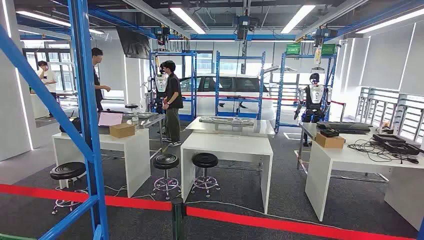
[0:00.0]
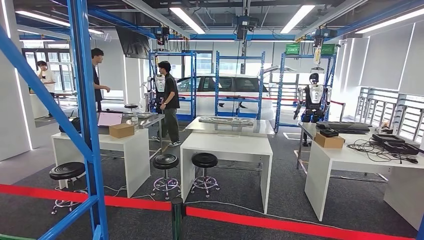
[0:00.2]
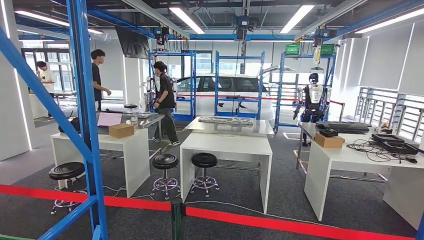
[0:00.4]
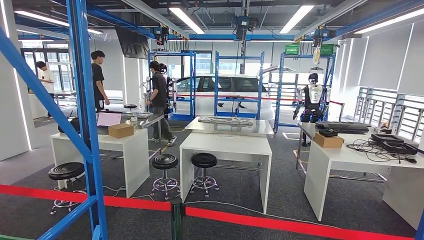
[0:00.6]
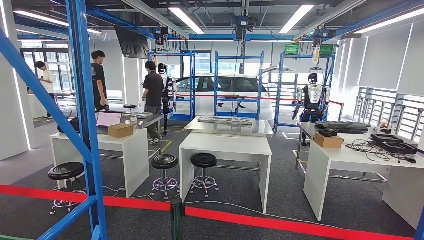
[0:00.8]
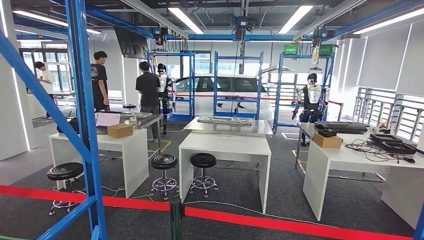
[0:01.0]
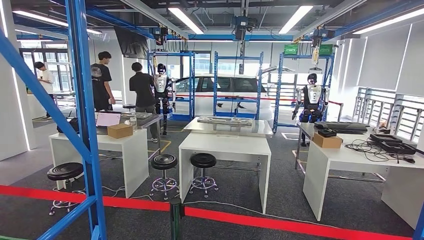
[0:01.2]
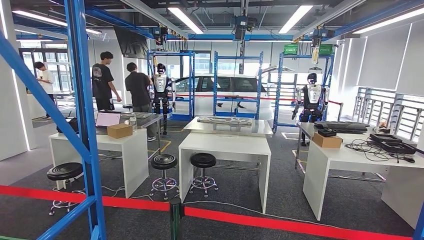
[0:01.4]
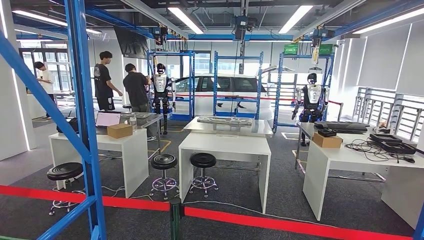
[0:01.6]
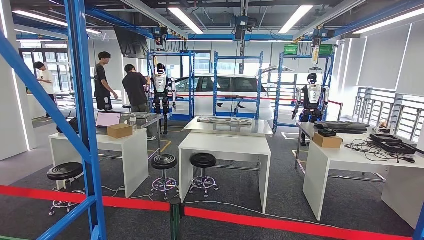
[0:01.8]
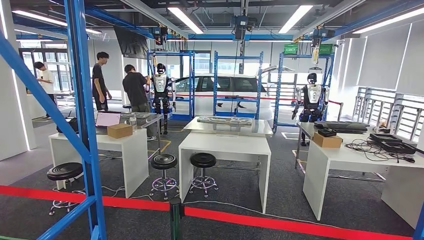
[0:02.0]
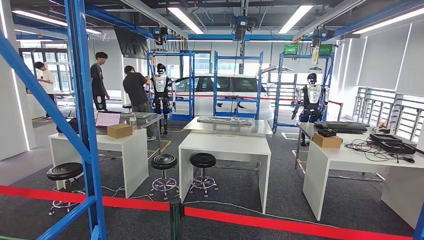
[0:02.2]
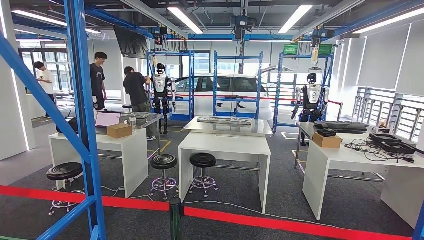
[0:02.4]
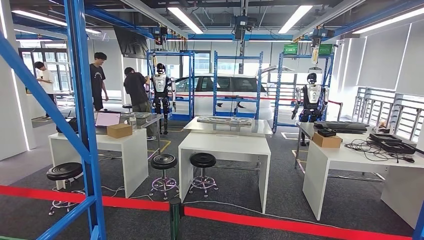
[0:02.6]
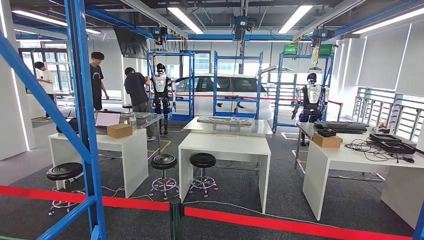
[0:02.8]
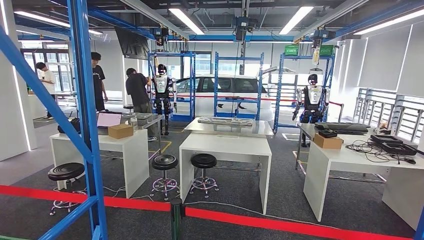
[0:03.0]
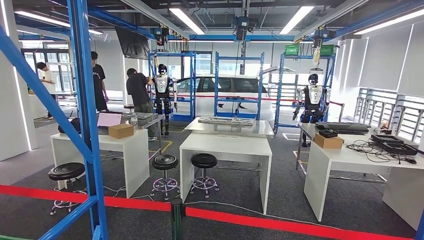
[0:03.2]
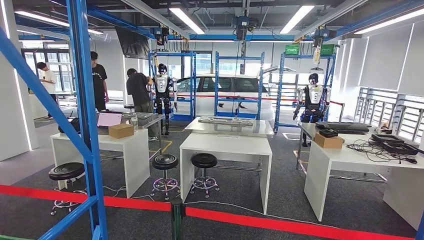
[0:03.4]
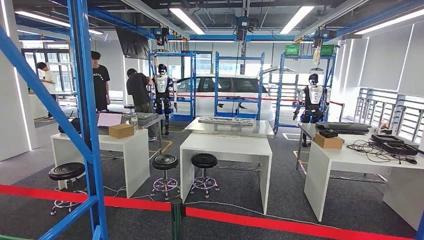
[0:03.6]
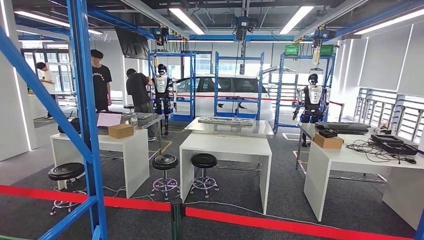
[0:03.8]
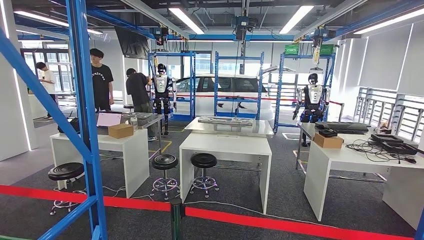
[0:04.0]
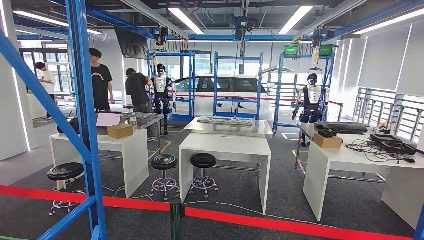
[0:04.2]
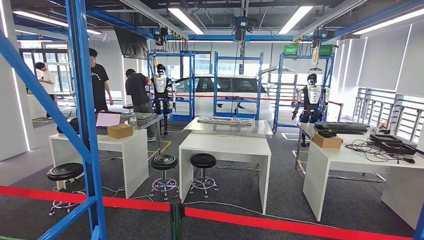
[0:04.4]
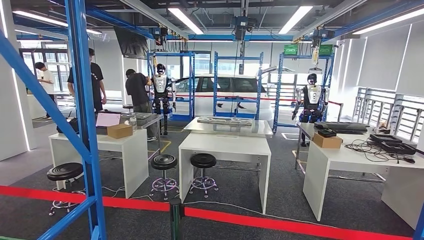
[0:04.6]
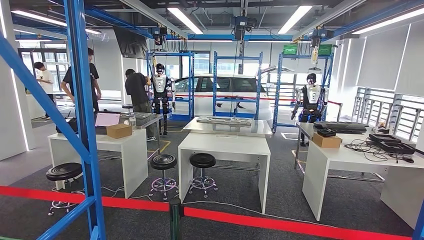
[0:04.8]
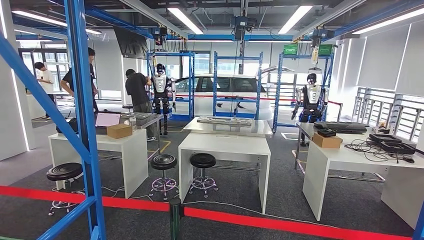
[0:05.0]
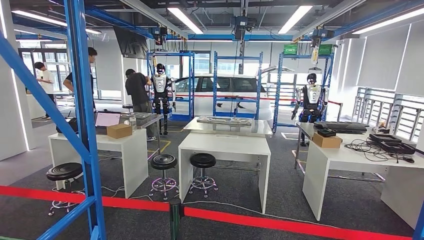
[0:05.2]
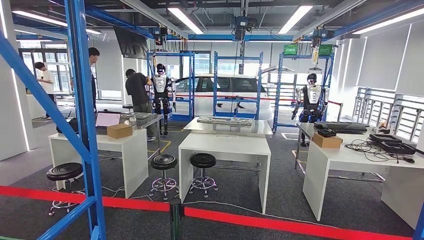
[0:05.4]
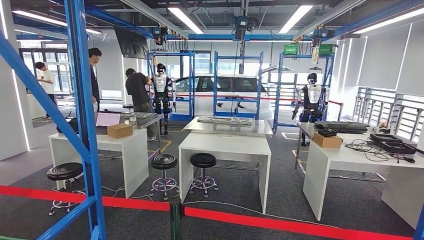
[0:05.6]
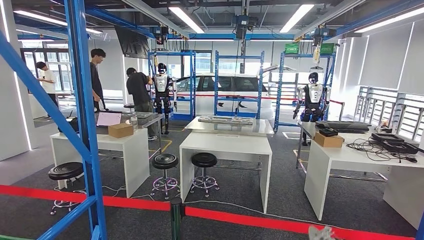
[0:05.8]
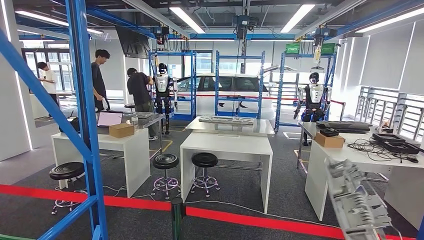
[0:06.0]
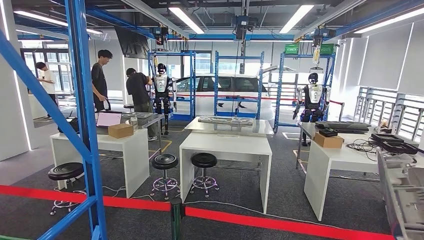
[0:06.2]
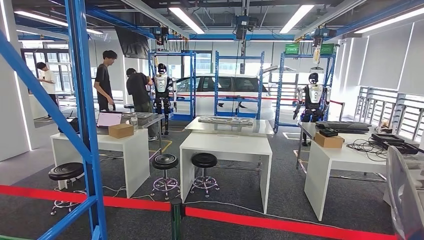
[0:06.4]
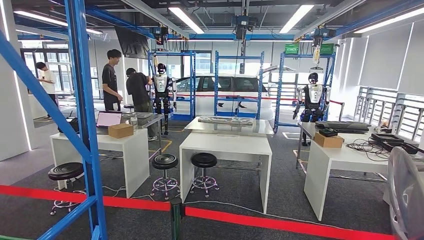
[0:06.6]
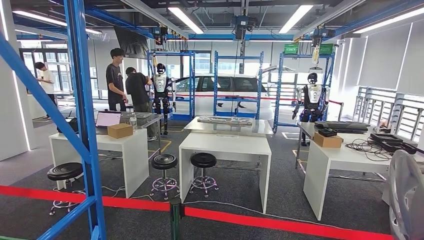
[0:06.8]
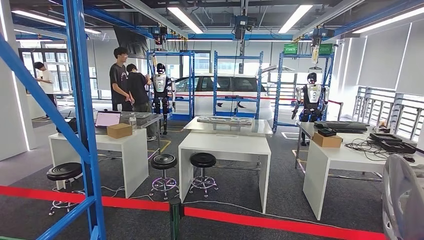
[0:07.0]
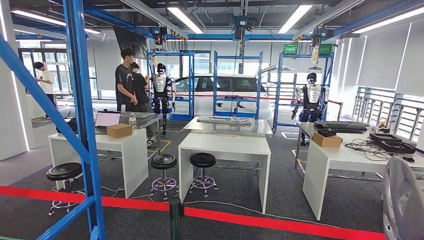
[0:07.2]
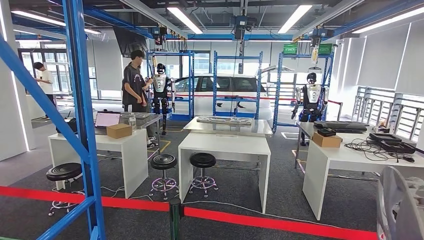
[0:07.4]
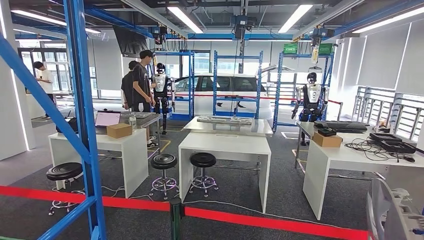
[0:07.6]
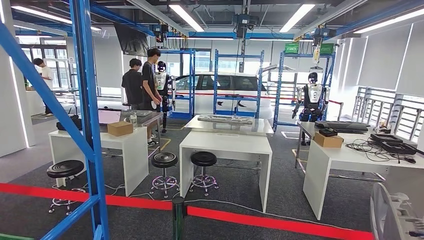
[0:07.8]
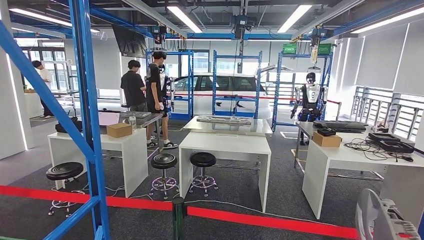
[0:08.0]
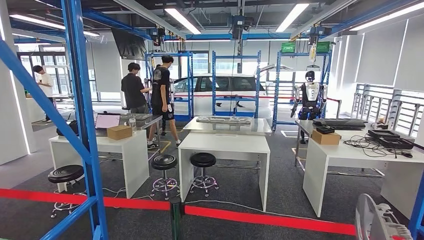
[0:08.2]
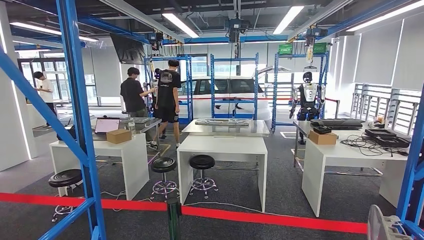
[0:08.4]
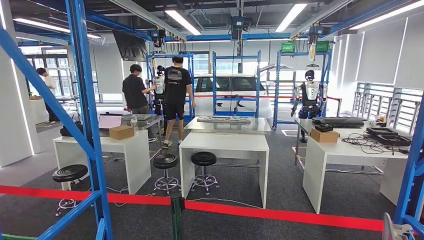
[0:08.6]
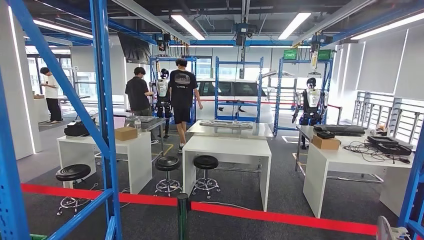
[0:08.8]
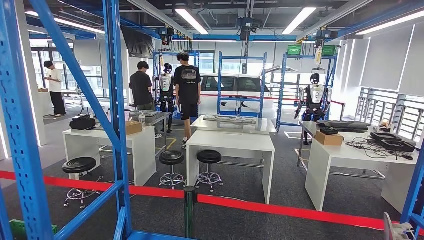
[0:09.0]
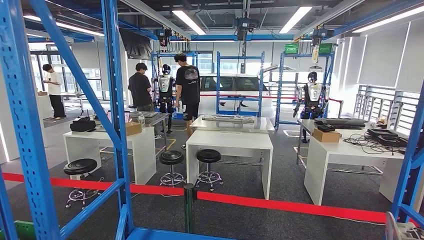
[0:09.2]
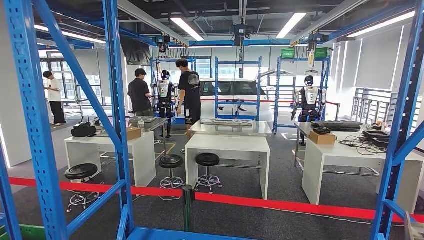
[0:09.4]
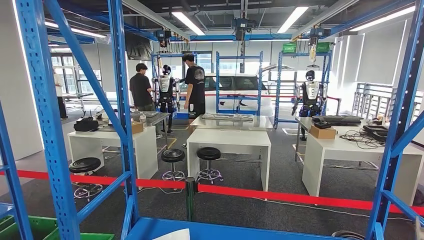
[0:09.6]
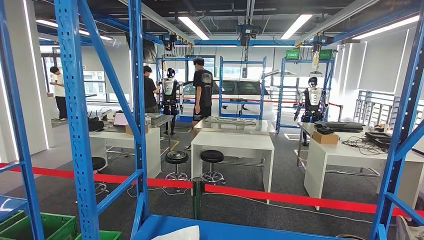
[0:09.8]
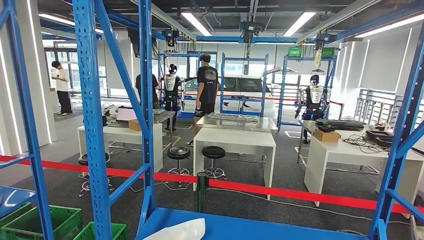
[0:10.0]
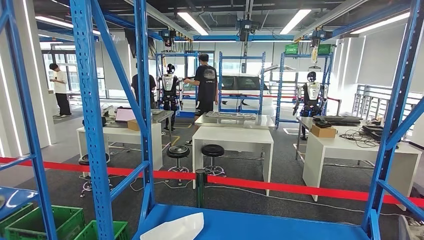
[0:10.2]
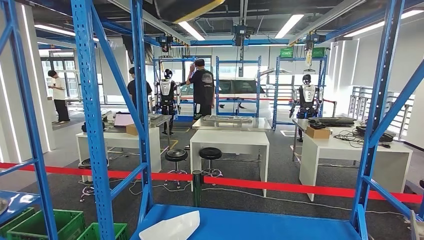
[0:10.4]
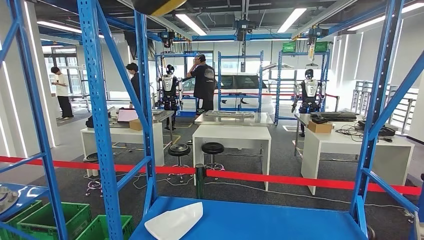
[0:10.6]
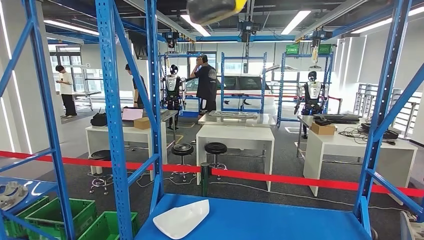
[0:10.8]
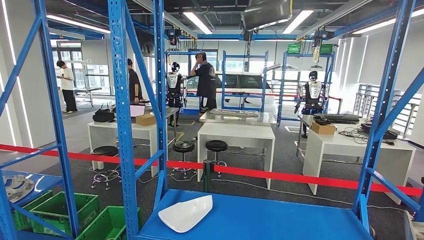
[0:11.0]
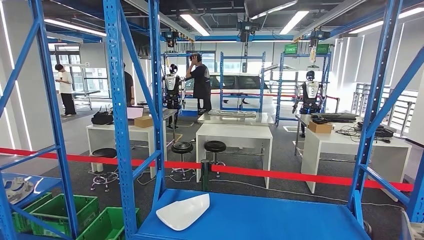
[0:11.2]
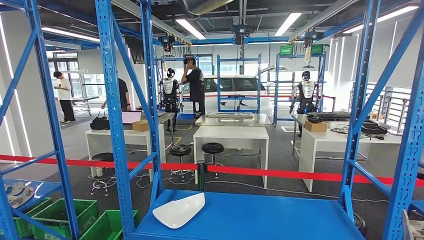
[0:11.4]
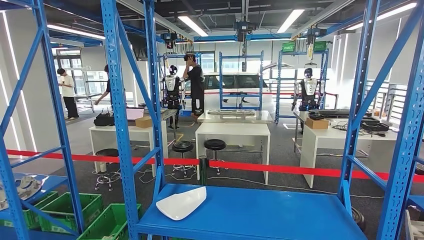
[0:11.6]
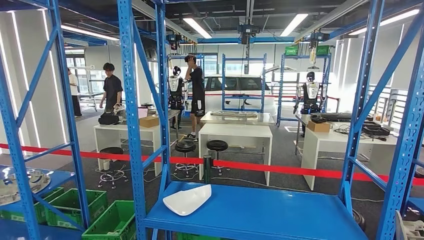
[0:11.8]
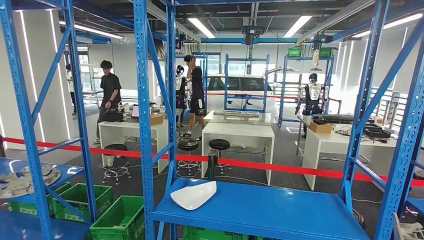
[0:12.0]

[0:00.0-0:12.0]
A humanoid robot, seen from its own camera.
Step, 0:00.0 to 0:09.8: Pick up the small component from the shelf.

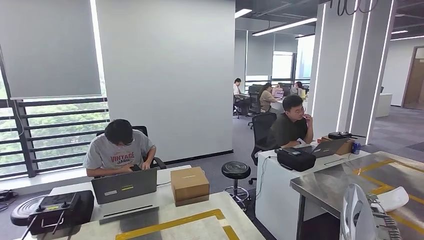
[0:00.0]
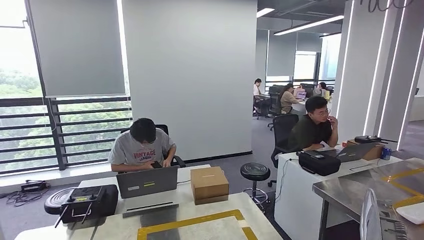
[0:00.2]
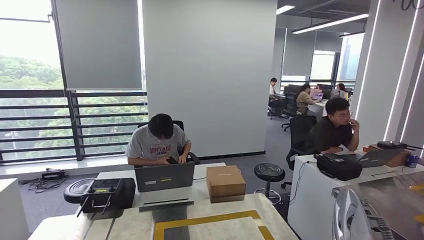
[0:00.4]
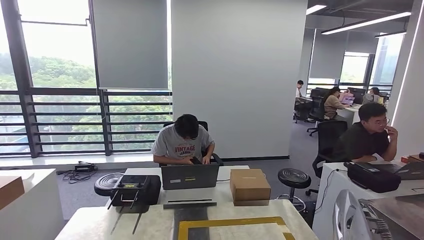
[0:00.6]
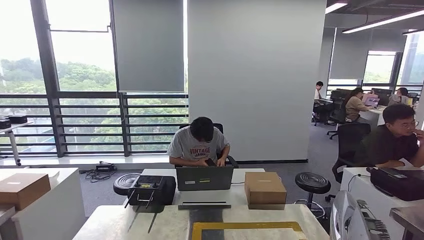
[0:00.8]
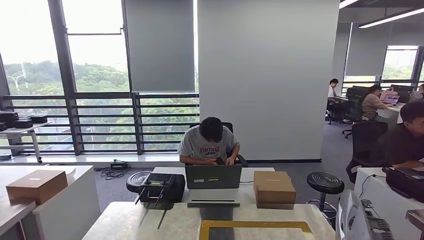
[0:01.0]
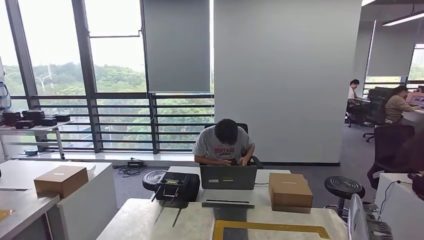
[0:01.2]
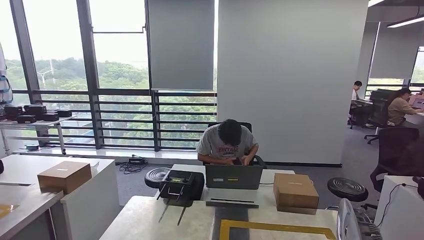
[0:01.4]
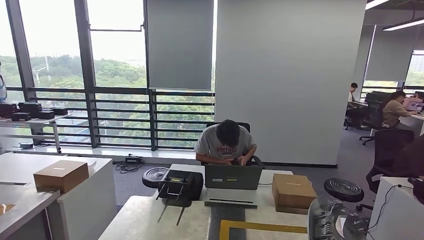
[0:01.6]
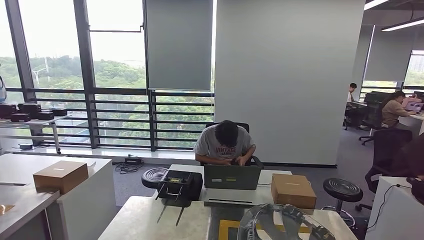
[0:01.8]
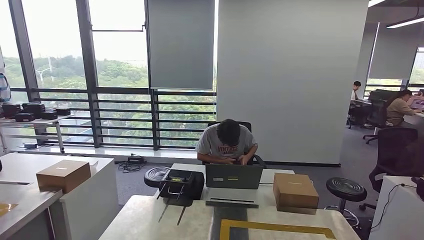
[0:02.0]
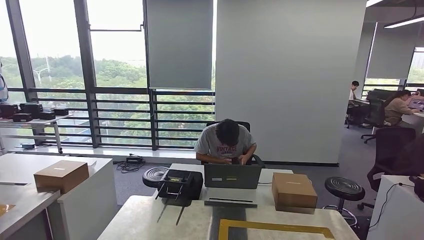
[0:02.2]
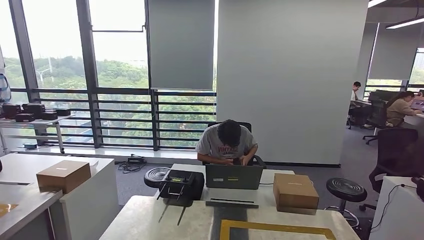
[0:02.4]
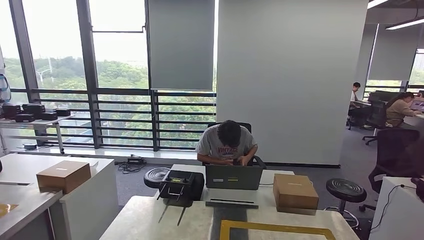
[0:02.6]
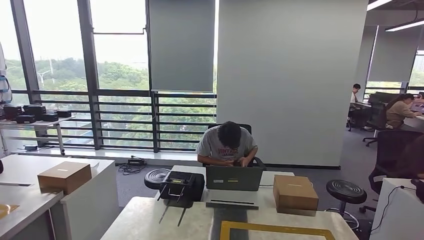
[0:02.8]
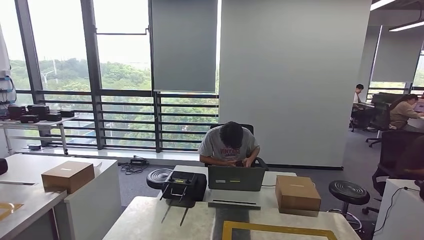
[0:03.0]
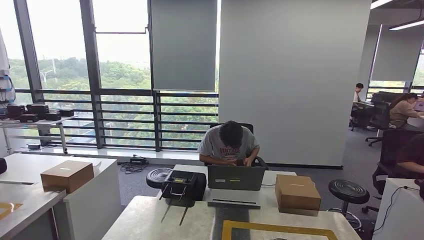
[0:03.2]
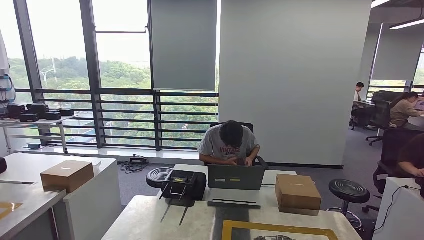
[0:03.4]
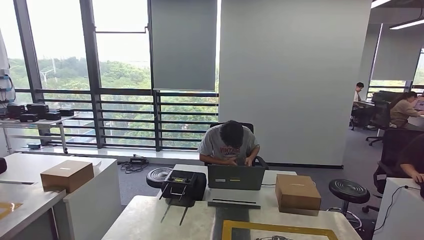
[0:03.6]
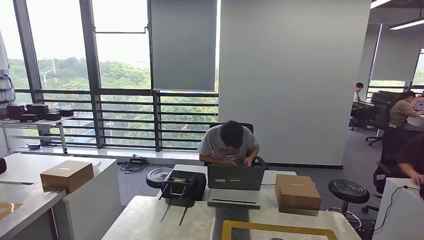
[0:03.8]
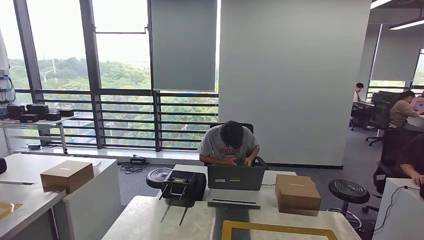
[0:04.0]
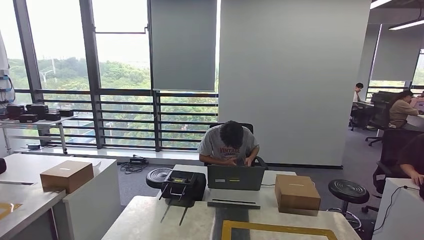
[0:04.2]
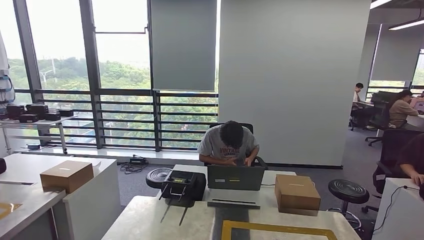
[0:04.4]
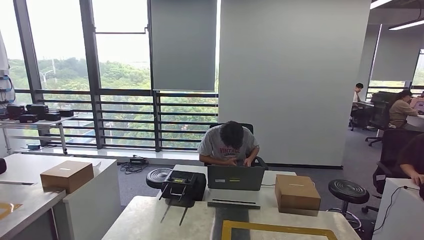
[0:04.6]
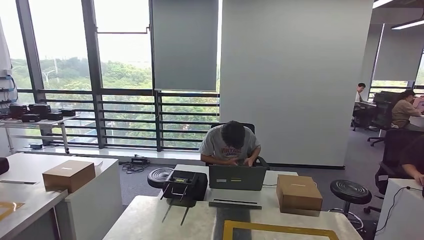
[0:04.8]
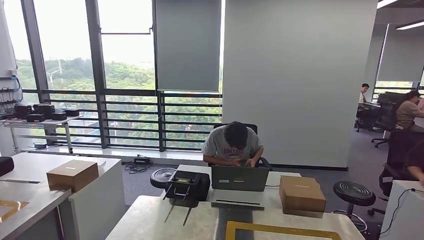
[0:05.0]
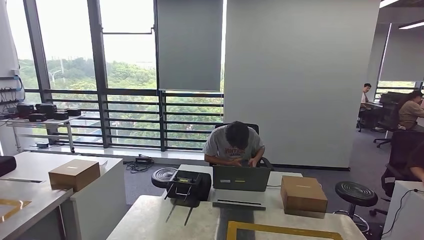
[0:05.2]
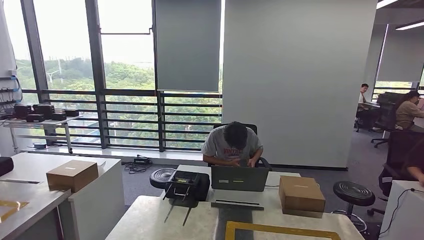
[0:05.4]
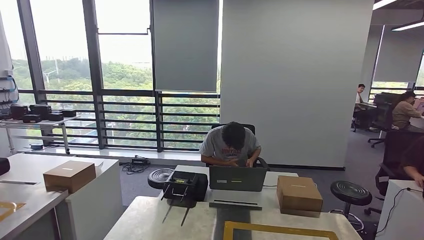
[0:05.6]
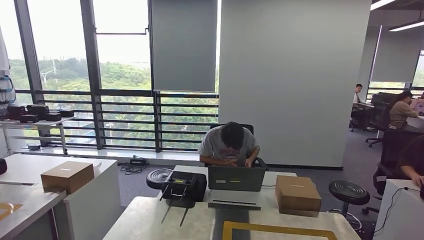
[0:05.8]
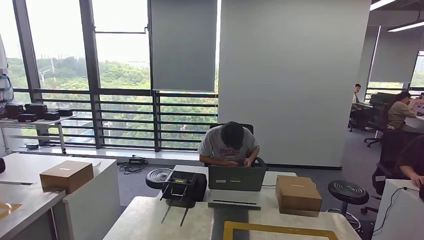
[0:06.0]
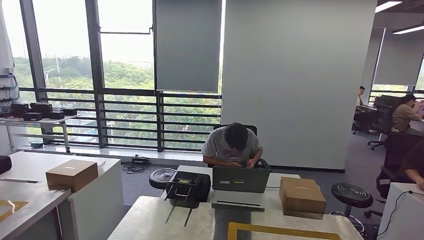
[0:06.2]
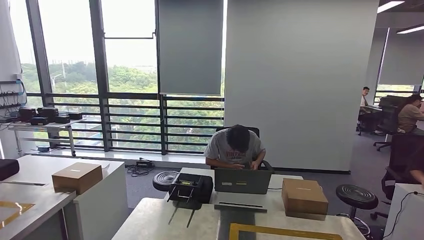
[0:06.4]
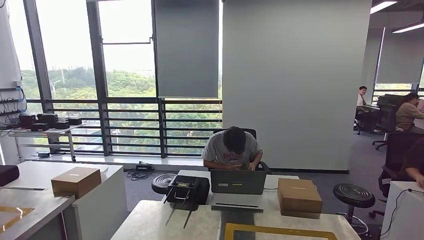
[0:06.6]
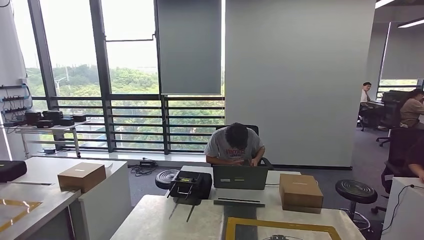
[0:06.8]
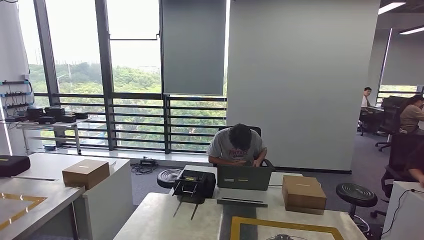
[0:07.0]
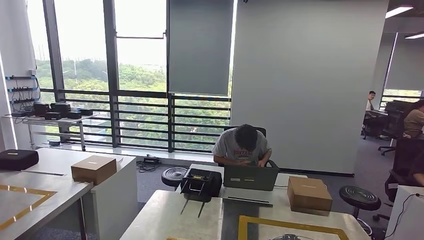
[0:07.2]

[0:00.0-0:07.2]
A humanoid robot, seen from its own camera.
0:01.4 to 0:02.8: The right hand goes roughly 20 cm forward, downward and to the left.
0:04.4 to 0:05.8: The right hand moves backward, roughly 20 cm.
